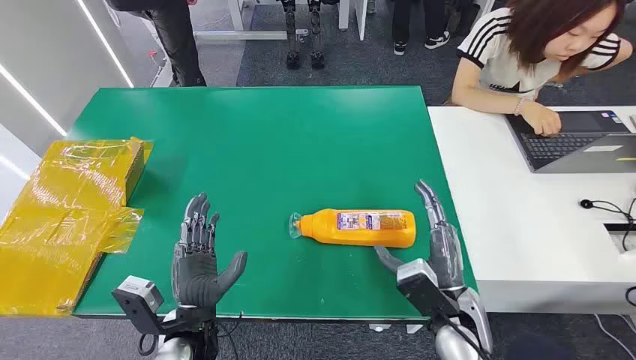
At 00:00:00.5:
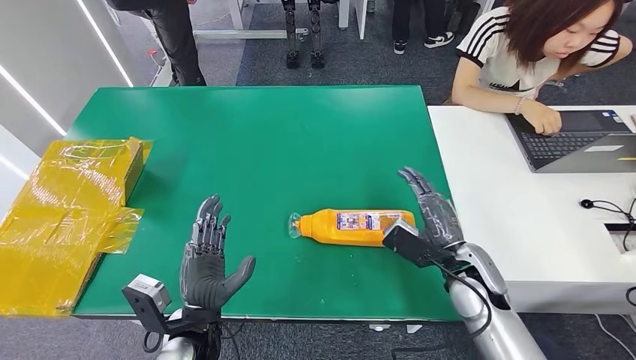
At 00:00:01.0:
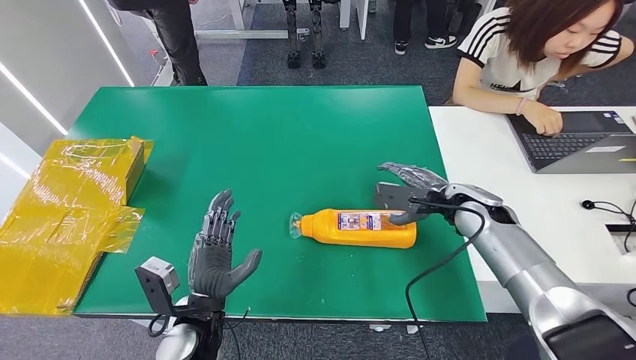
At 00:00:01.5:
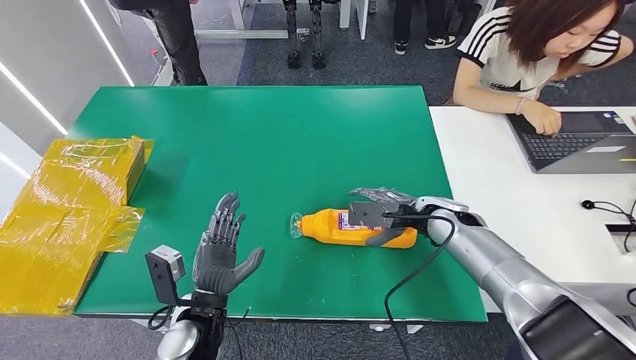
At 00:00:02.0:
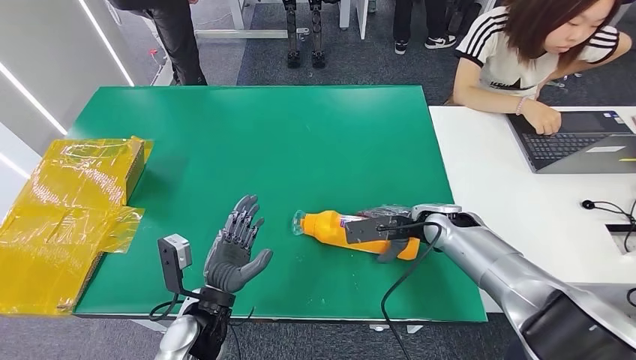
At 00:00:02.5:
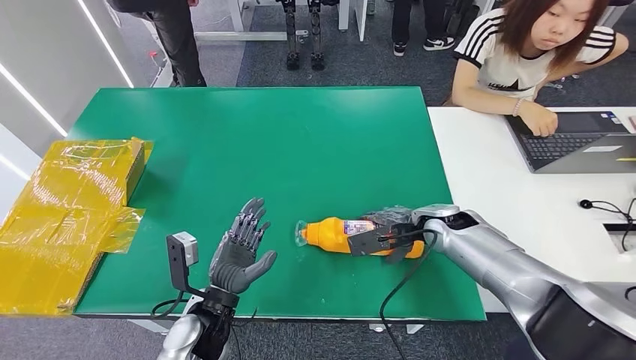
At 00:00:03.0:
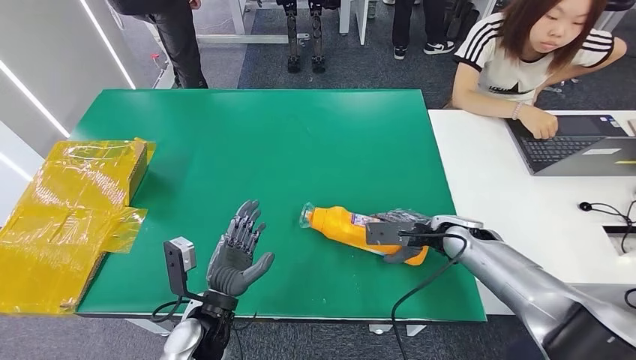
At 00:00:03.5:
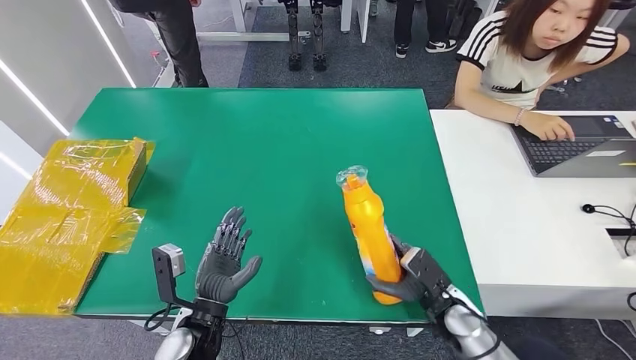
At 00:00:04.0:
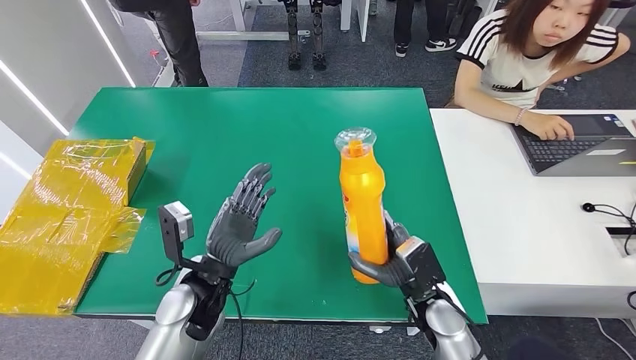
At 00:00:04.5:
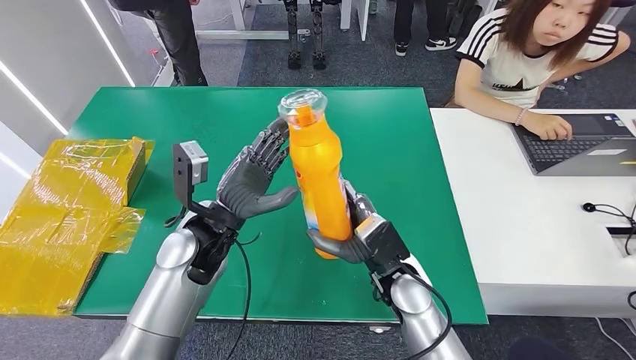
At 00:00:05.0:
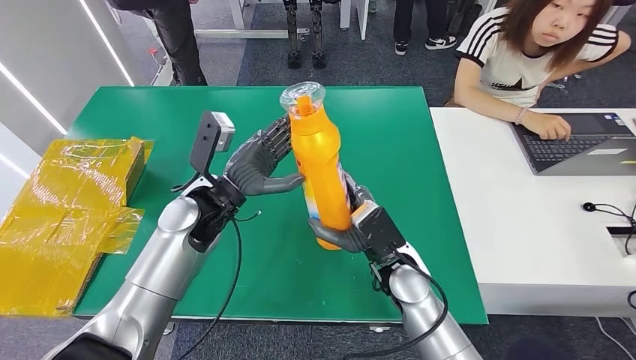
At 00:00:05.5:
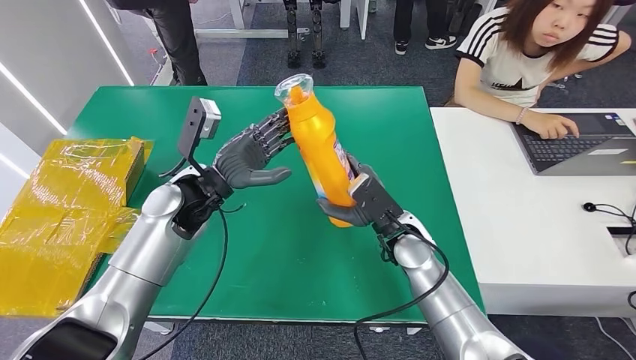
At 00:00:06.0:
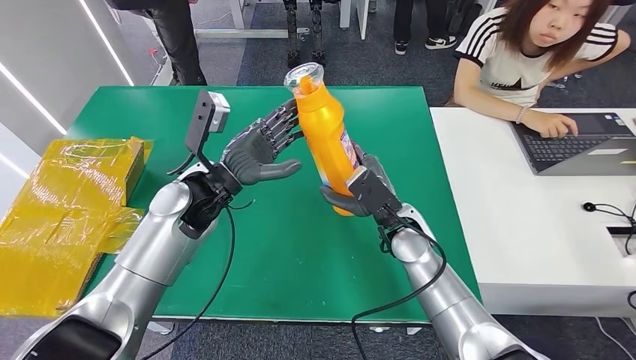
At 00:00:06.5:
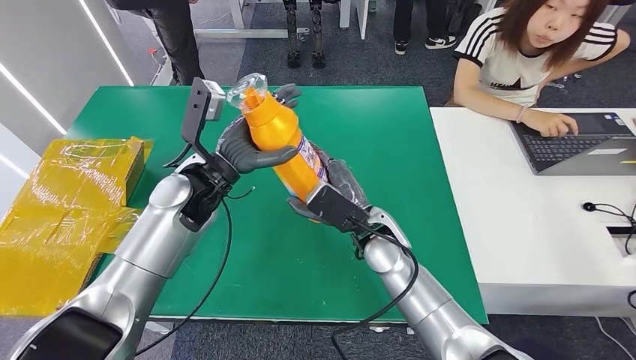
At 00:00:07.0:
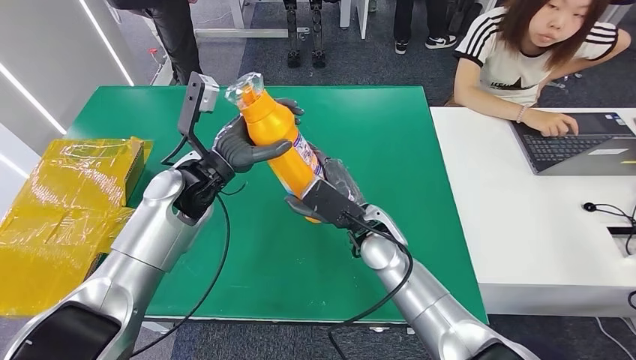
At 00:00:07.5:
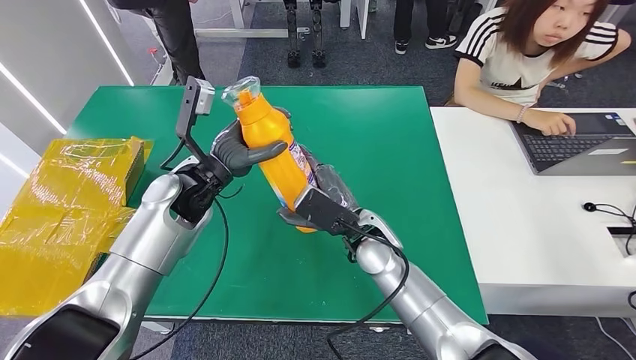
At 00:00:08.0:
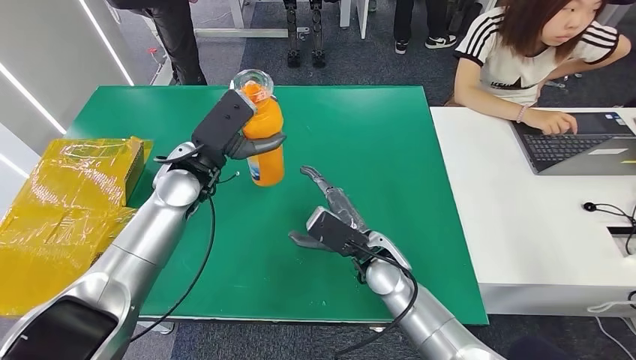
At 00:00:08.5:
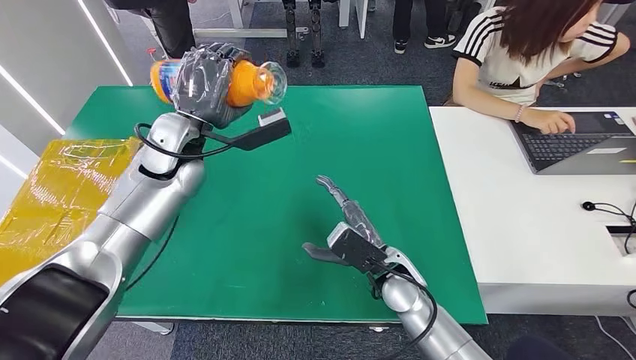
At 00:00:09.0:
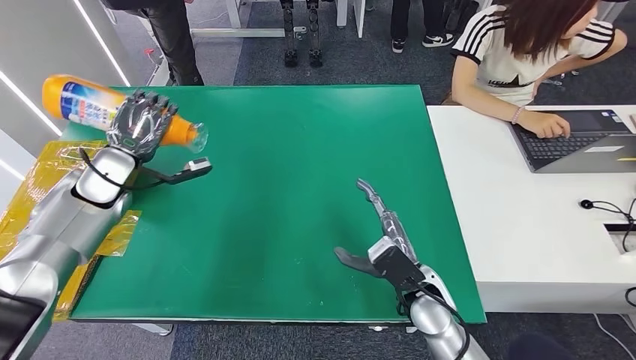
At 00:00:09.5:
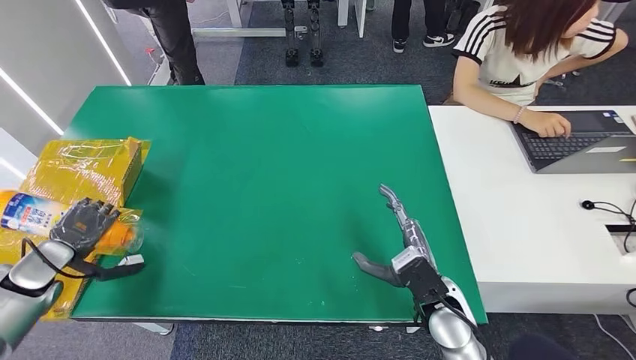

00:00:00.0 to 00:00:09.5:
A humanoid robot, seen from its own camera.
Step, 00:00:00.0 to 00:00:04.5: Pick up the bottle from the table.
00:00:05.5 to 00:00:07.5: The right hand is displaced to the left by some 5 cm.

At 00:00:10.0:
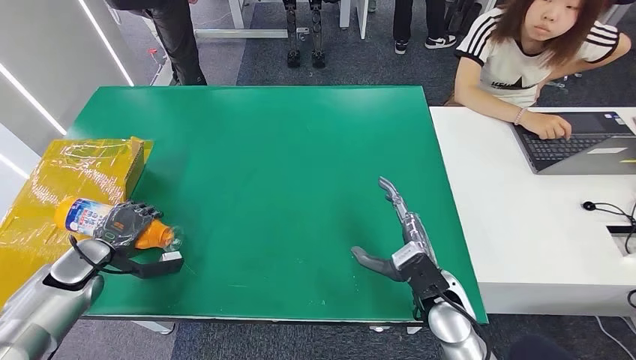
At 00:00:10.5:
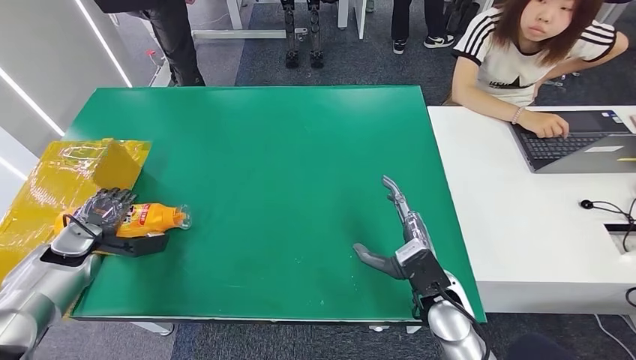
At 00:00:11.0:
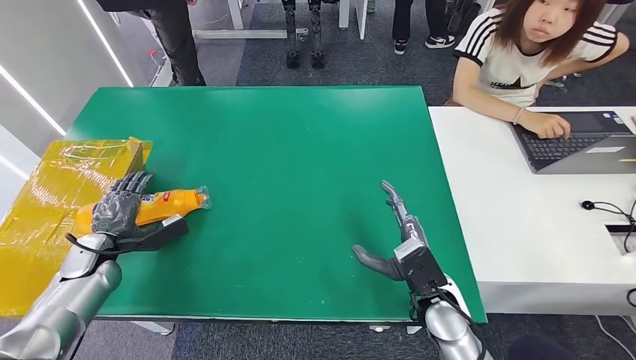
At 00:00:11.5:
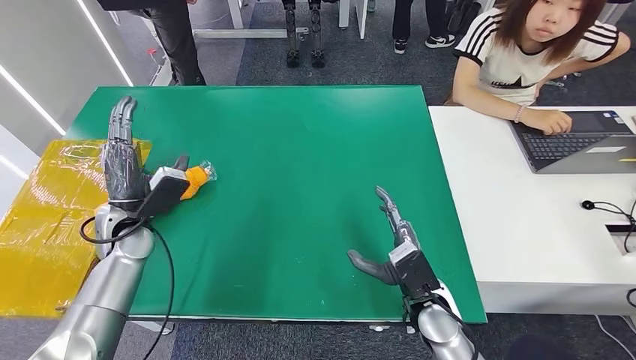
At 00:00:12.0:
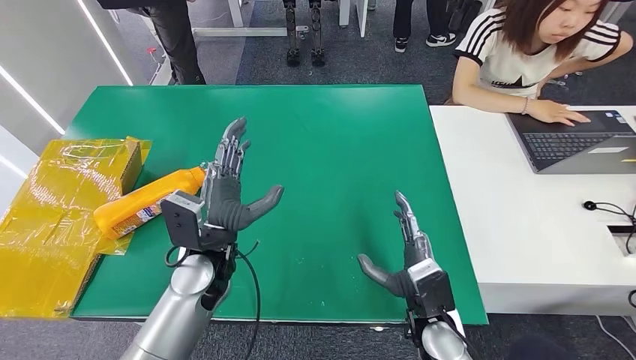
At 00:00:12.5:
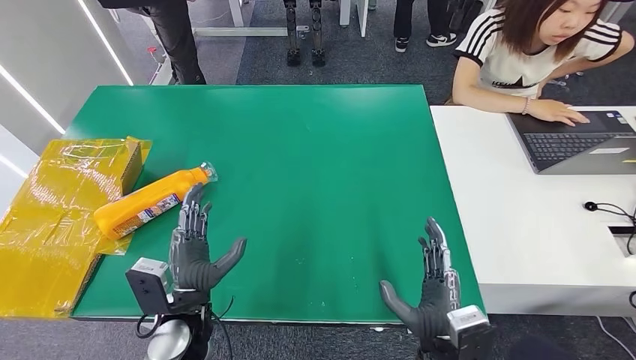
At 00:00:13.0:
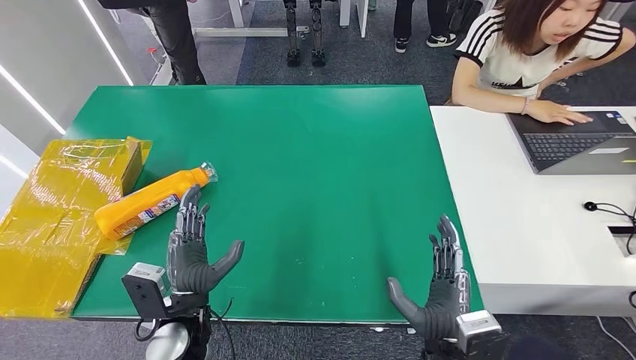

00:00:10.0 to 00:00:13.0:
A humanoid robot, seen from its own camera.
Step, 00:00:10.0 to 00:00:13.0: Turn the bottle to the front side.
00:00:10.0 to 00:00:11.5: The left hand travels to the right and upward by approximately 15 cm.
00:00:11.5 to 00:00:13.0: The right hand shifts about 10 cm backward. The left hand goes some 20 cm backward and to the right.
